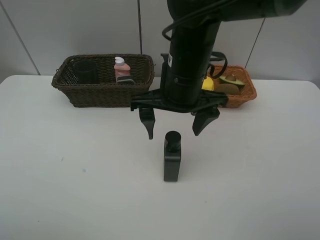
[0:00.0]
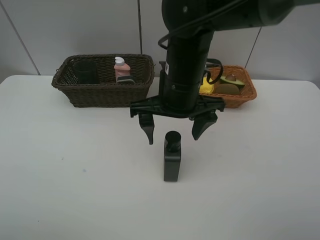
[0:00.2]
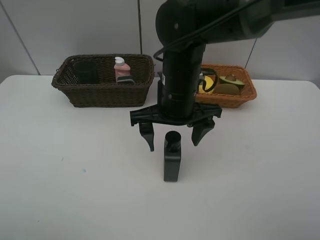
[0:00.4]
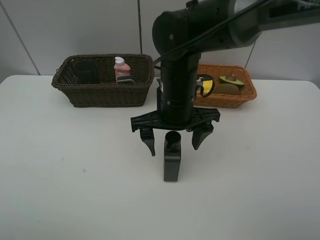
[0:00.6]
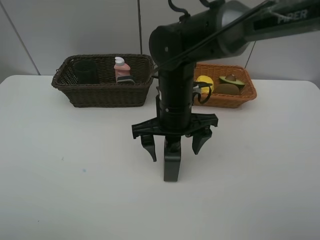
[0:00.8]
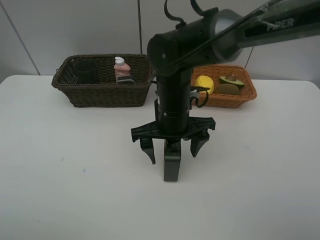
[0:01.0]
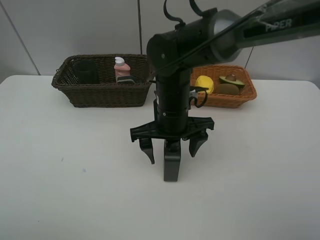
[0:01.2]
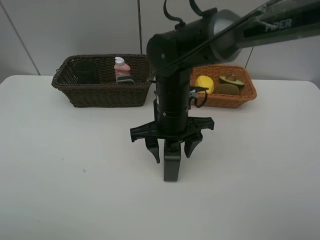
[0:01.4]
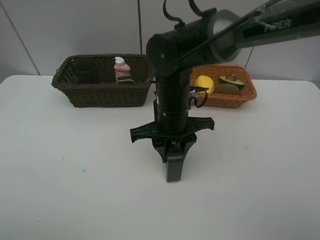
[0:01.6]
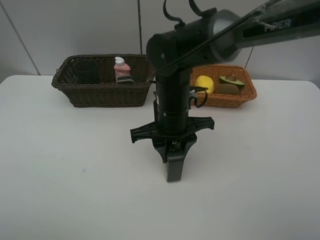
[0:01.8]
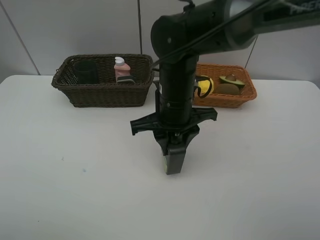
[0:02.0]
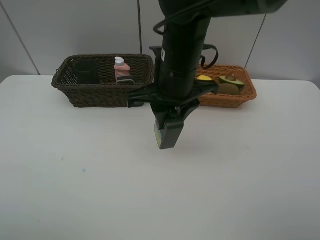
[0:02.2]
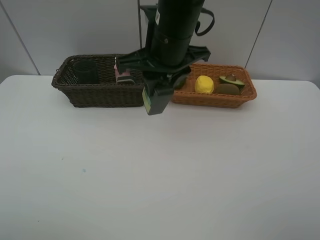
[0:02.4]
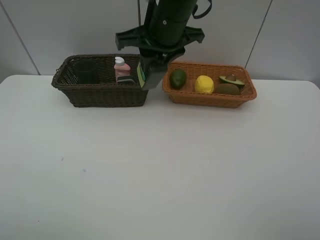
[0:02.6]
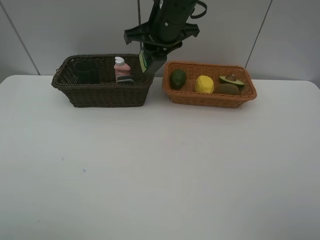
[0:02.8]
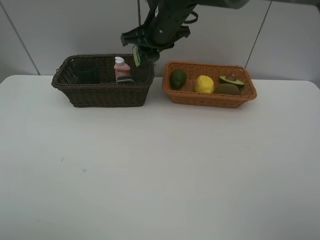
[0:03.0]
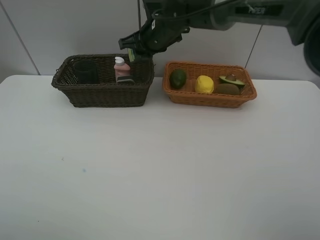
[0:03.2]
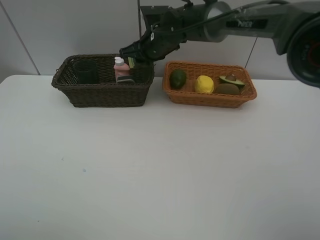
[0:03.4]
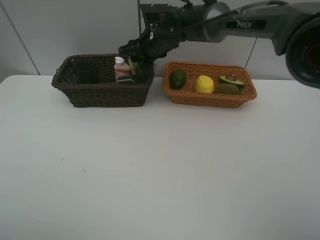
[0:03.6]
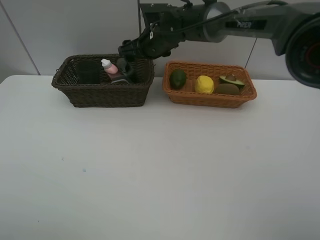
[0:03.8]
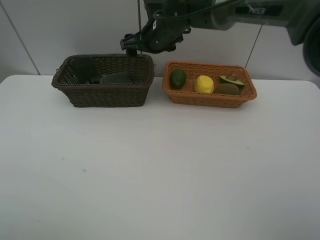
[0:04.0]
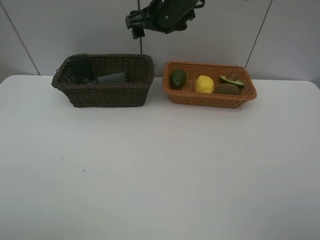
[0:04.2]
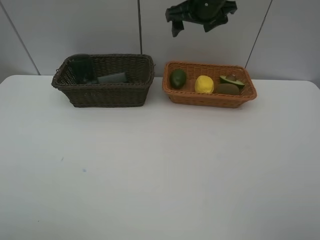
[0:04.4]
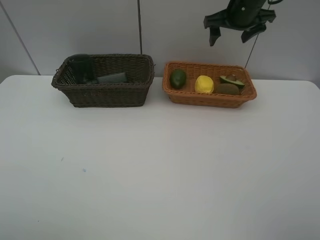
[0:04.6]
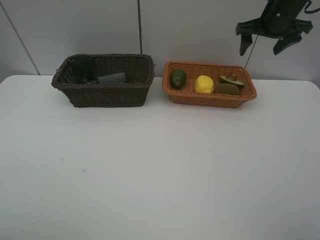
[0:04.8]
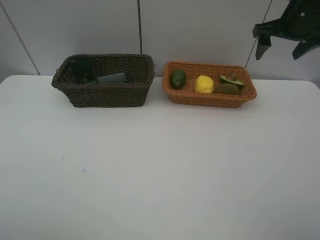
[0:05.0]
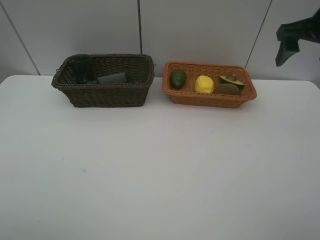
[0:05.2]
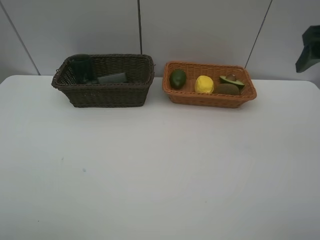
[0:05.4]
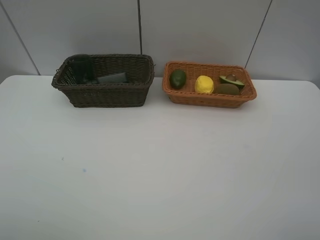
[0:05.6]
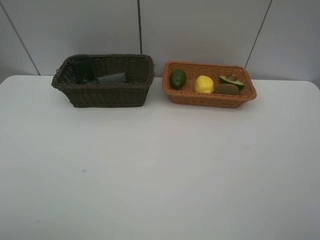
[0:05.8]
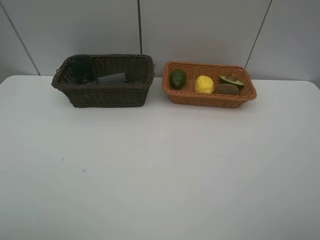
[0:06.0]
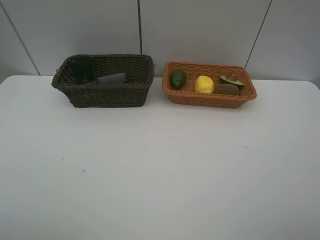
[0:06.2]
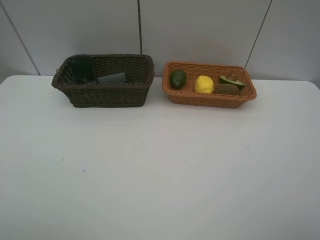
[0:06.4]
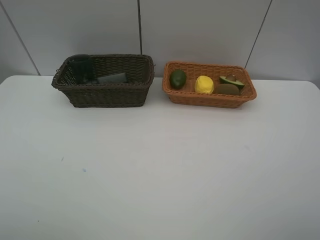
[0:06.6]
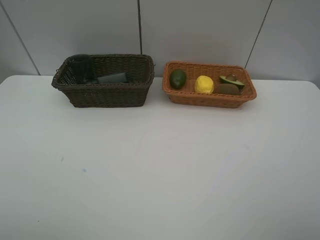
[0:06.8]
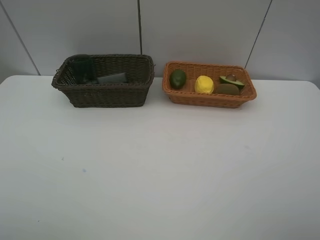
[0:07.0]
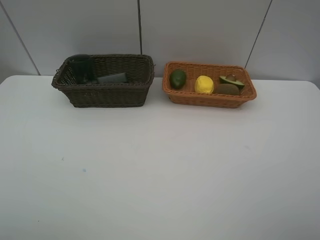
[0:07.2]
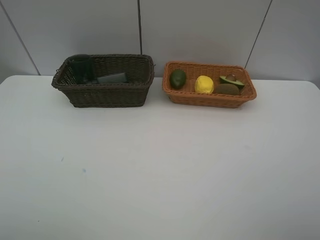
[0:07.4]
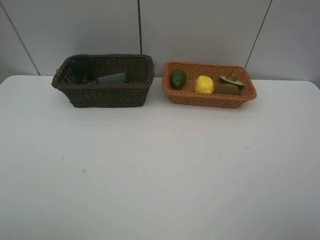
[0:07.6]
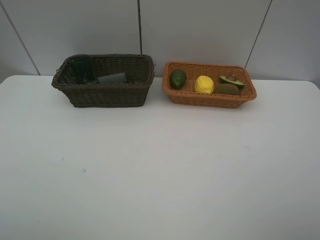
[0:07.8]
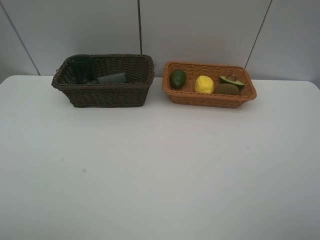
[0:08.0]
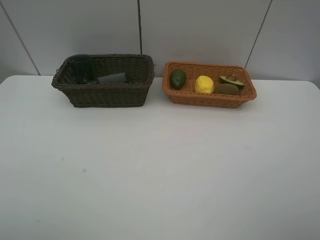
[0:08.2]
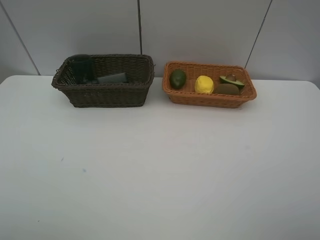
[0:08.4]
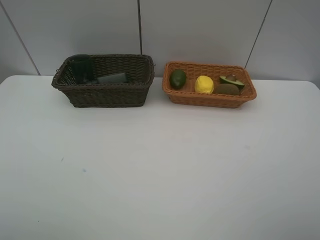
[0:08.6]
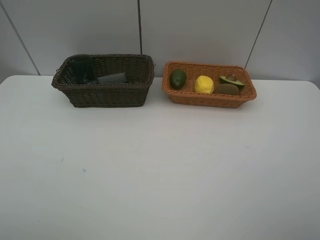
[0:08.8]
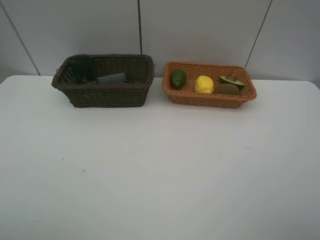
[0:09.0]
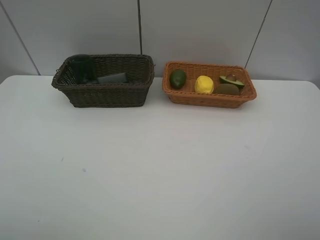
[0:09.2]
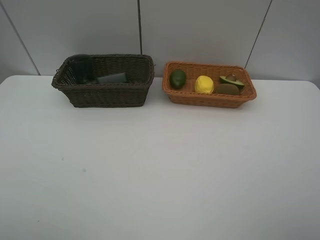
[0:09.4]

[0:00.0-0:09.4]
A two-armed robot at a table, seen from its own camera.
Task of the whole recording: Place multiple objects separately in different baskets.
Step, 0:00.0 to 0:02.0: Pick up the hard facial cleanser with right gripper.
Step, 0:02.2 to 0:03.8: Place the hard facial cleanser in the dark basket with right gripper.
0:00.0 to 0:01.6: The right gripper heads downward, covering about 10 cm, and closes.
0:01.6 to 0:03.2: The right gripper travels forward by roughly 15 cm.
0:03.2 to 0:04.8: The right gripper is displaced to the right by about 25 cm, and opens up.
0:04.8 to 0:06.2: The right gripper travels backward by approximately 50 cm.
0:07.8 to 0:09.4: Both grippers stay put.

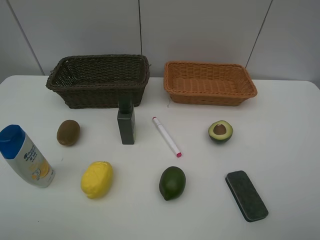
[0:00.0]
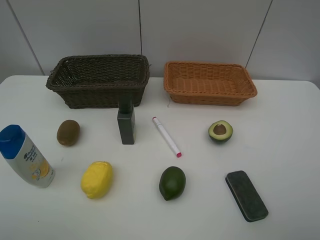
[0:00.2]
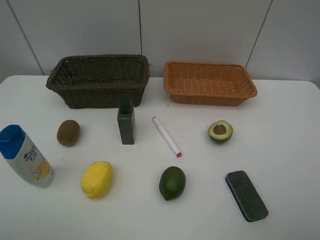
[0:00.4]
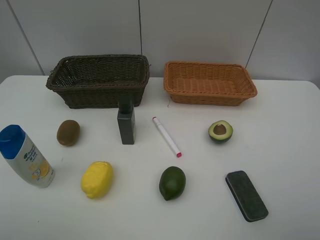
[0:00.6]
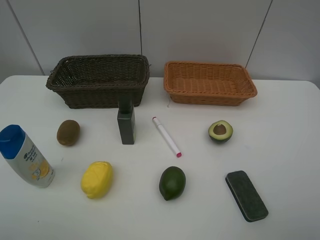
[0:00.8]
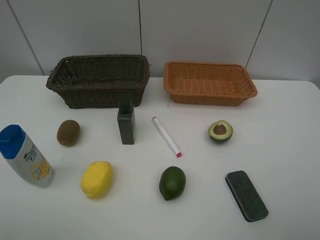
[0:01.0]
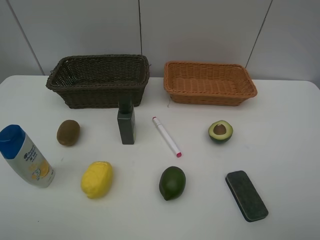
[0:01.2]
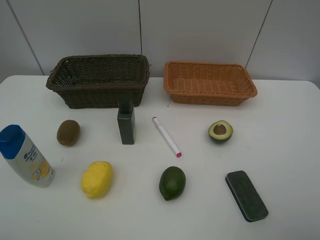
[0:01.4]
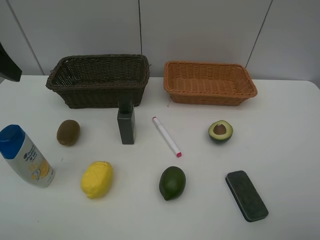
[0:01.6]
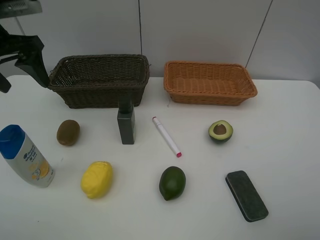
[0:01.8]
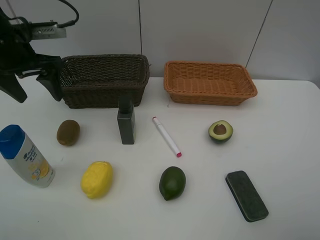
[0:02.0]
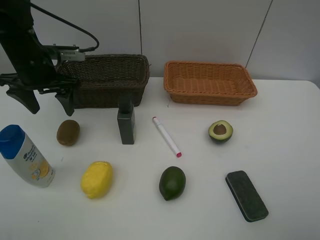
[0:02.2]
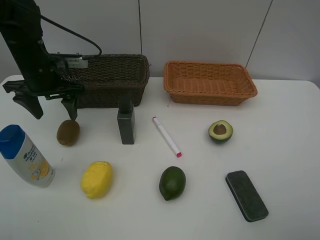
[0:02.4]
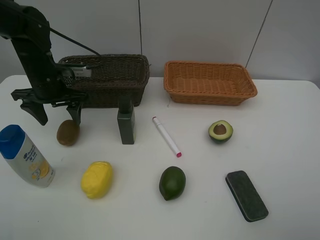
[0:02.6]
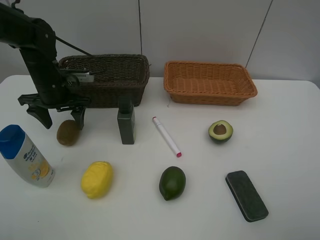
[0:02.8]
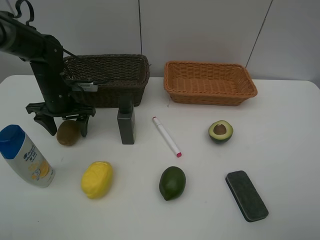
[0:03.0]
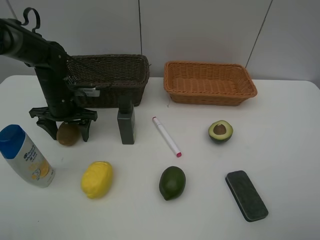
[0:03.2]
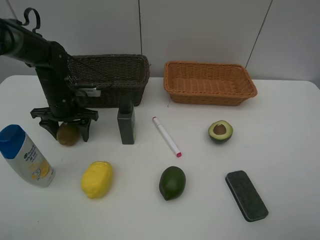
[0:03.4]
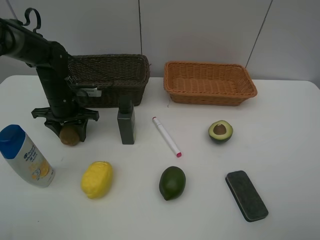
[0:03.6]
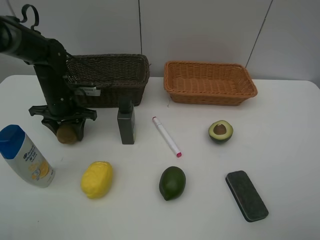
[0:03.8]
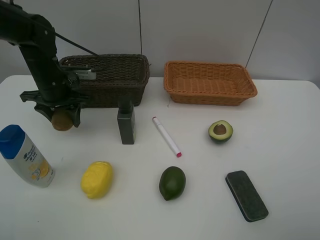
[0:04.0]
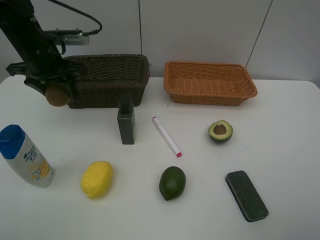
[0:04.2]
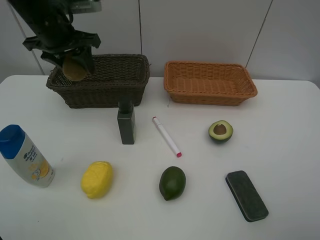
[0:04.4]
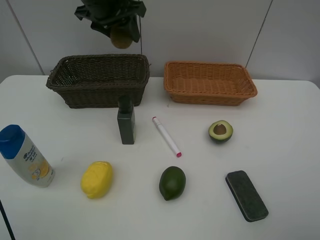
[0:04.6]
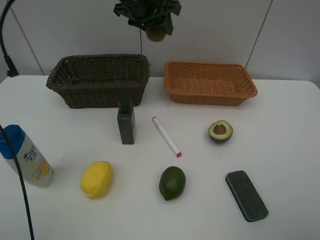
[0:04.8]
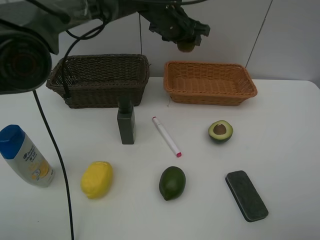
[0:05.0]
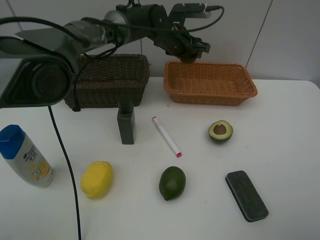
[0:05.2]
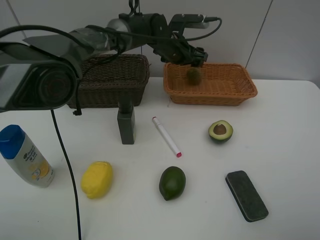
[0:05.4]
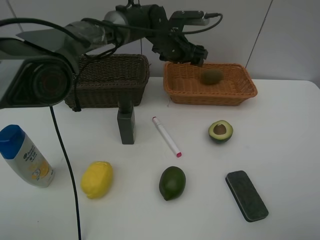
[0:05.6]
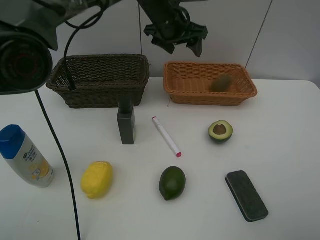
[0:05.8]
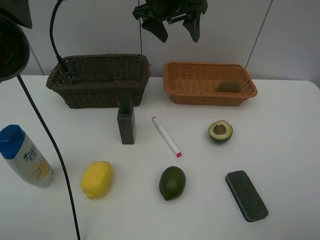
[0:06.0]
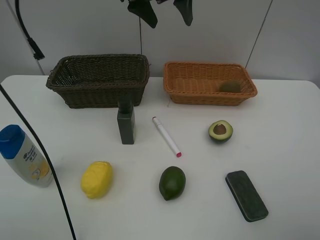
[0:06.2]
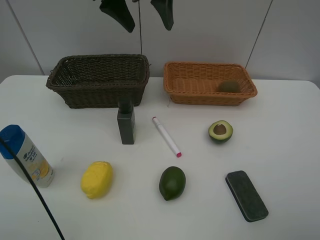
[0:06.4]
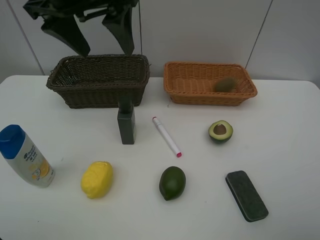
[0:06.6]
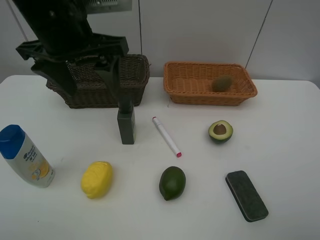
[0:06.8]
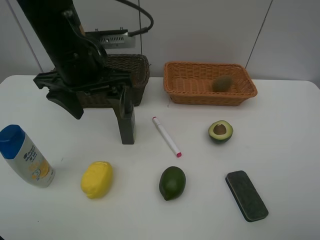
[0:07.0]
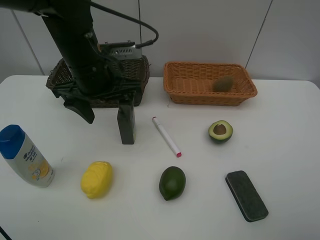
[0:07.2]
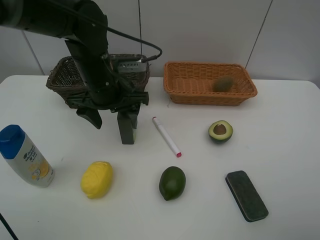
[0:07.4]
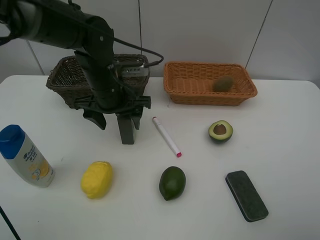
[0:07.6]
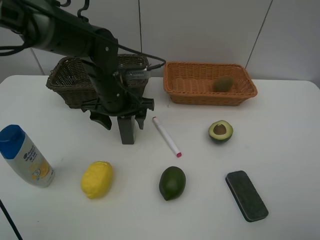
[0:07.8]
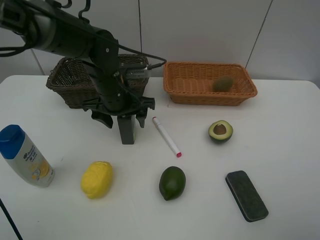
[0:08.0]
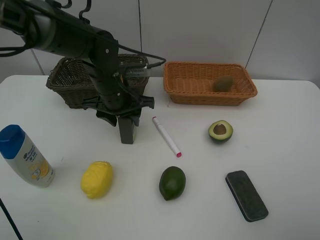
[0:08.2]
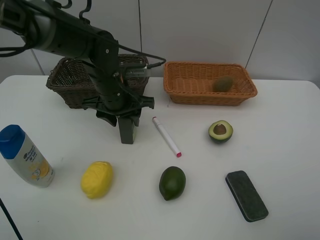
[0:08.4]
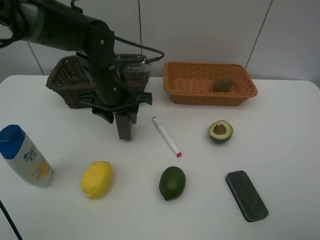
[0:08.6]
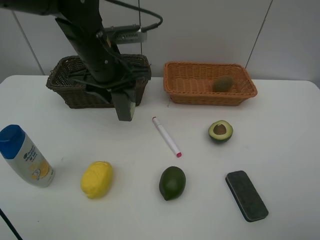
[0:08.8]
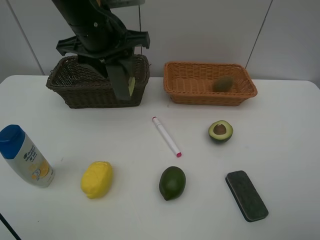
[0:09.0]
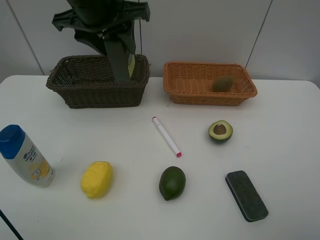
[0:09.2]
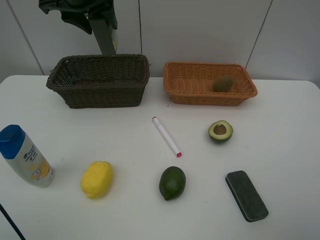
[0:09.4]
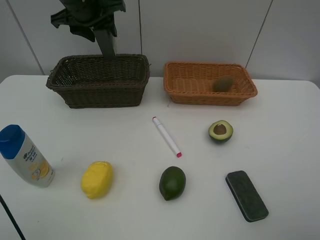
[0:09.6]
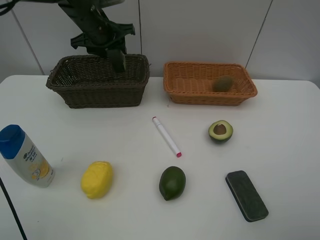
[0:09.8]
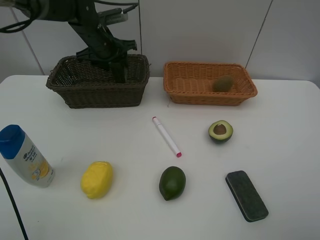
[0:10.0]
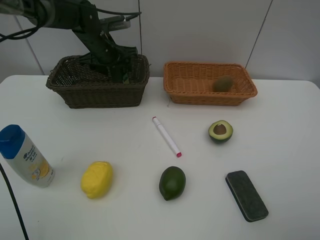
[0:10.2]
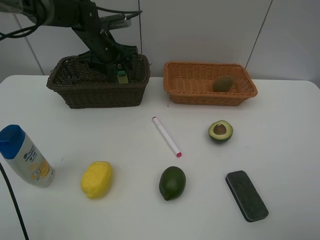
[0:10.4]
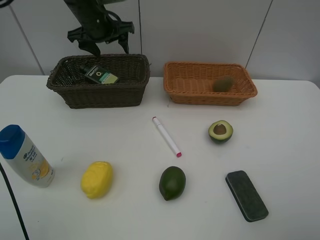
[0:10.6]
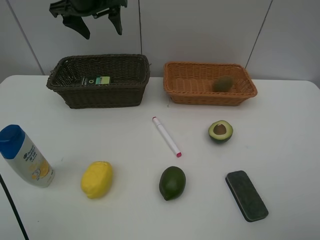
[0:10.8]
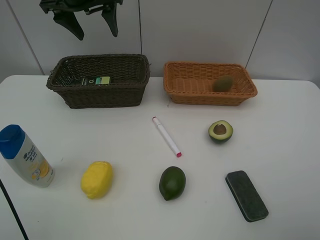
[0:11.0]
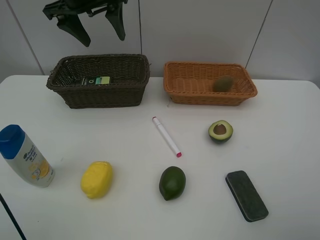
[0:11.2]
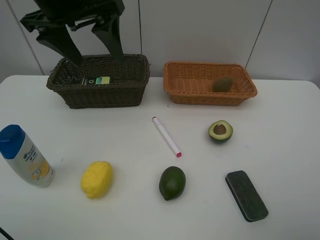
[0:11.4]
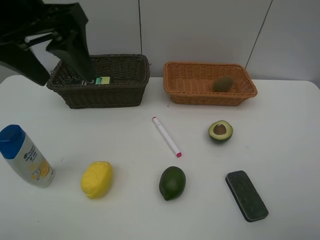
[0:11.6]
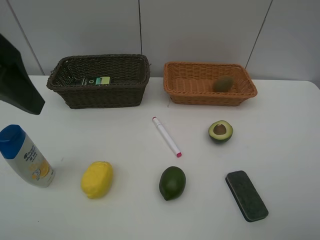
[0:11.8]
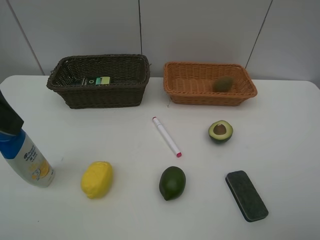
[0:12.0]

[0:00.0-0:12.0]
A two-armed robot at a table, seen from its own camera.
Task of the whole recording: Place multiple objects separately in different baskets.
Step, 0:00.0 to 0:03.8: Pick up kiwi with left gripper.
Step, 0:04.0 to 0:05.6: Place the kiwi in the light basket with left gripper.
Step, 0:05.8 to 0:08.6: Pick up the hard facial cleanser with left gripper.
Step, 0:08.8 to 0:10.4: Place the hard facial cleanser in the dark basket with left gripper.
0:01.6 to 0:03.0: The left gripper moves downward and forward, approximately 25 cm.
0:03.0 to 0:04.4: The left gripper moves upward, roughly 15 cm, and closes.
0:04.4 to 0:06.0: The left gripper goes approximately 20 cm to the right, and opens its fingers.
0:06.0 to 0:07.6: The left gripper goes about 20 cm downward, backward and to the left.
0:07.6 to 0:09.0: The left gripper travels upward by roughly 10 cm, and closes its fingers.
0:09.0 to 0:10.4: The left gripper travels forward and downward by roughly 20 cm, and opens its fingers.
0:10.4 to 0:12.0: The left gripper travels backward and upward by some 35 cm.
